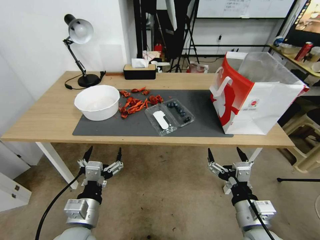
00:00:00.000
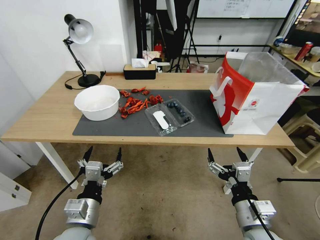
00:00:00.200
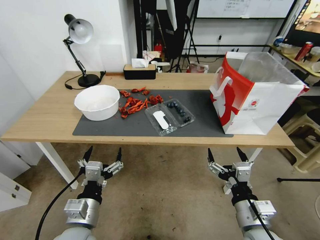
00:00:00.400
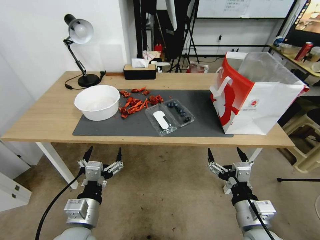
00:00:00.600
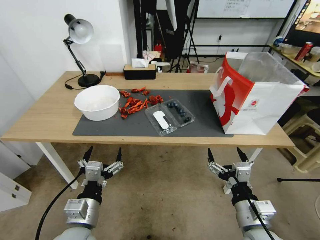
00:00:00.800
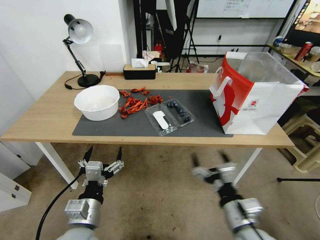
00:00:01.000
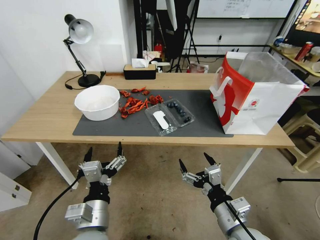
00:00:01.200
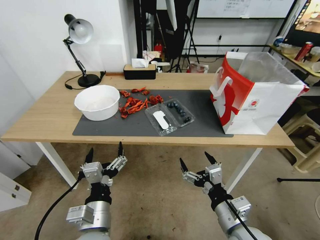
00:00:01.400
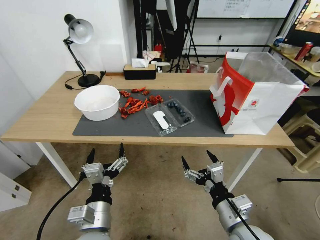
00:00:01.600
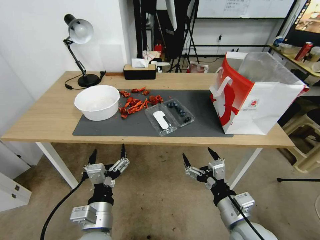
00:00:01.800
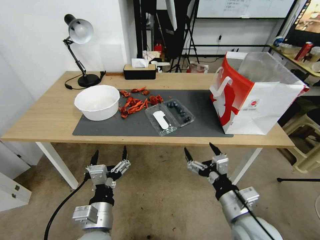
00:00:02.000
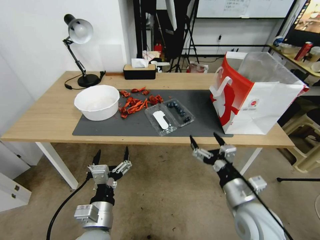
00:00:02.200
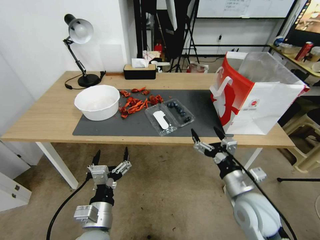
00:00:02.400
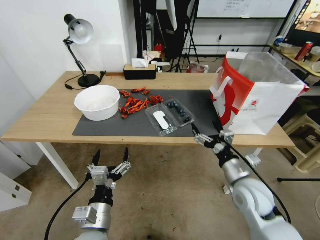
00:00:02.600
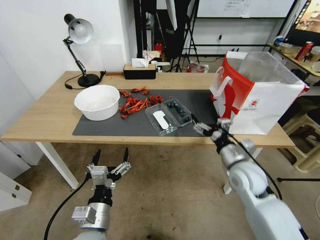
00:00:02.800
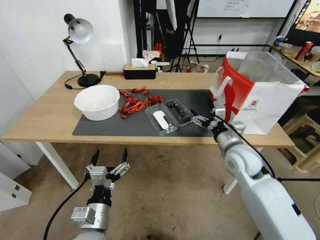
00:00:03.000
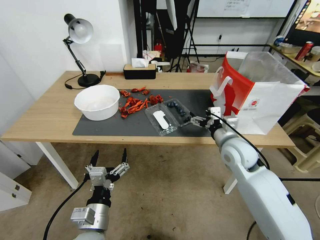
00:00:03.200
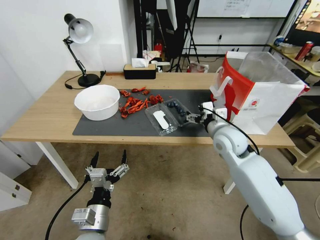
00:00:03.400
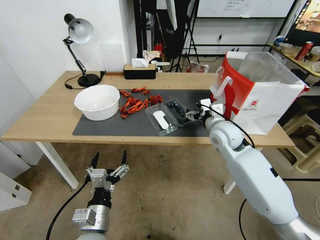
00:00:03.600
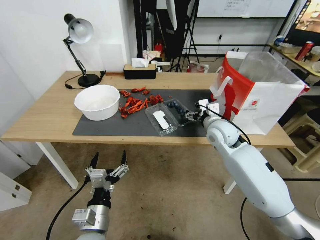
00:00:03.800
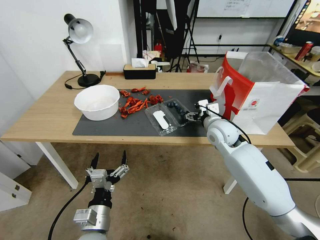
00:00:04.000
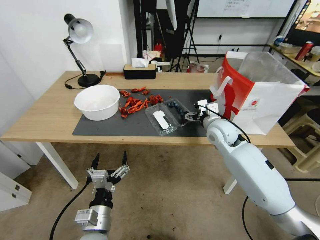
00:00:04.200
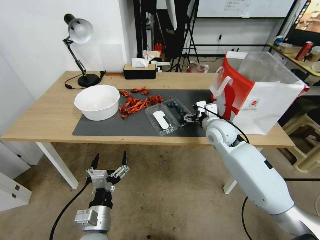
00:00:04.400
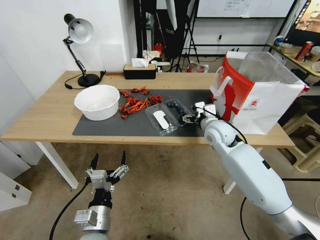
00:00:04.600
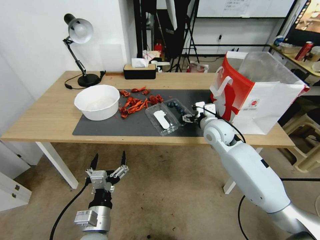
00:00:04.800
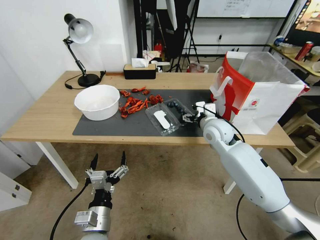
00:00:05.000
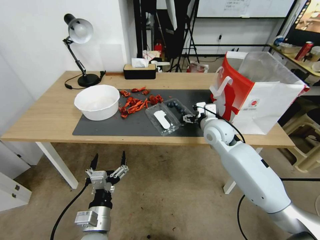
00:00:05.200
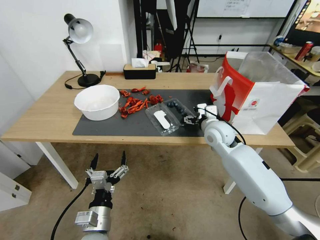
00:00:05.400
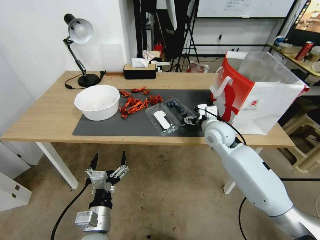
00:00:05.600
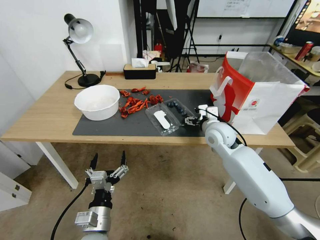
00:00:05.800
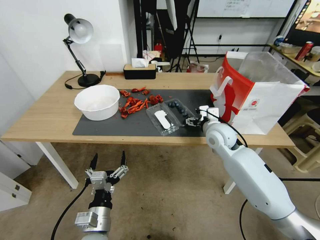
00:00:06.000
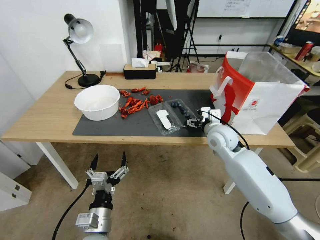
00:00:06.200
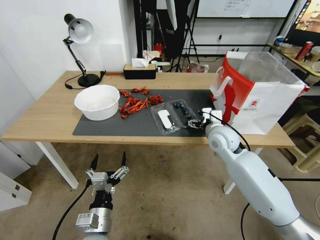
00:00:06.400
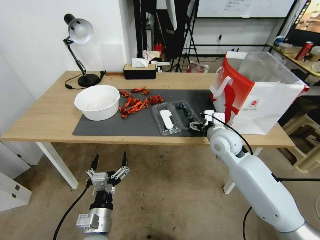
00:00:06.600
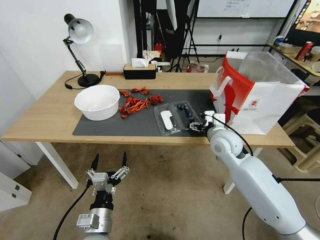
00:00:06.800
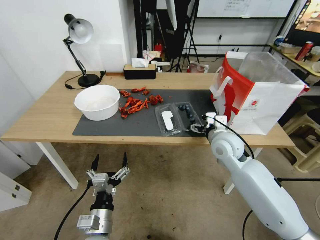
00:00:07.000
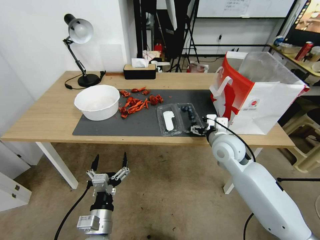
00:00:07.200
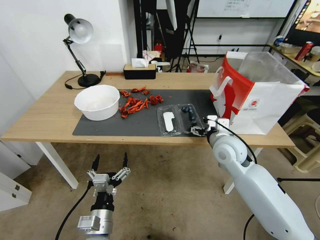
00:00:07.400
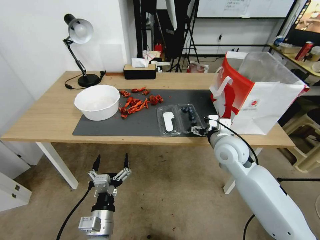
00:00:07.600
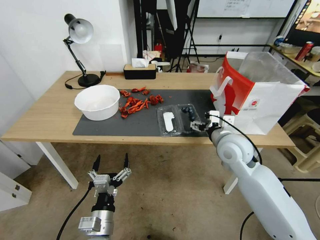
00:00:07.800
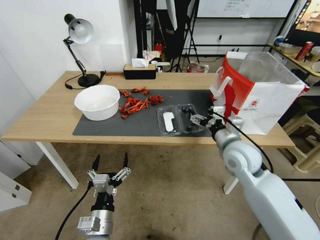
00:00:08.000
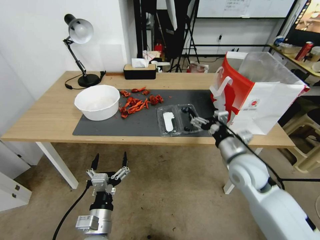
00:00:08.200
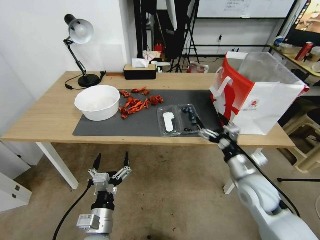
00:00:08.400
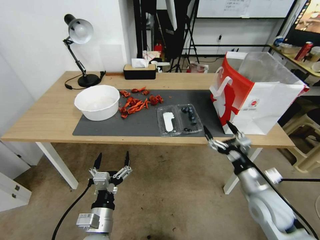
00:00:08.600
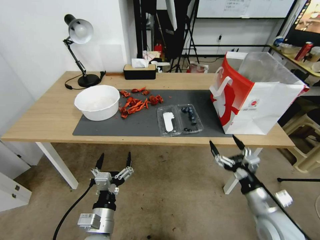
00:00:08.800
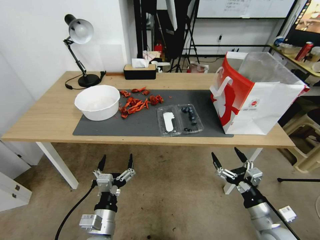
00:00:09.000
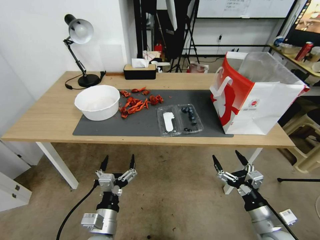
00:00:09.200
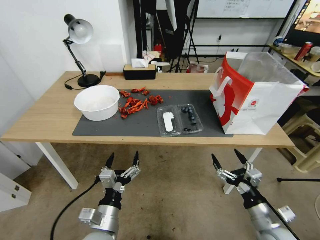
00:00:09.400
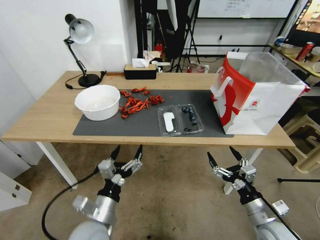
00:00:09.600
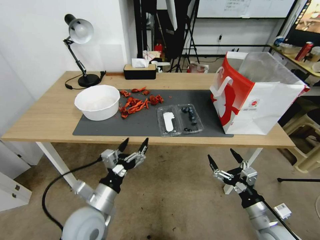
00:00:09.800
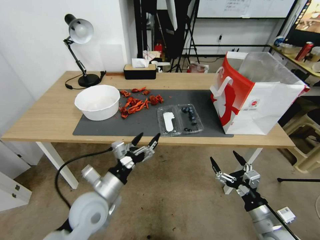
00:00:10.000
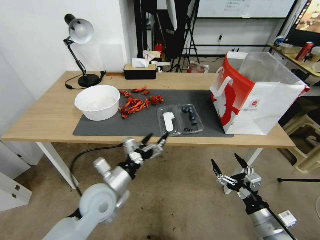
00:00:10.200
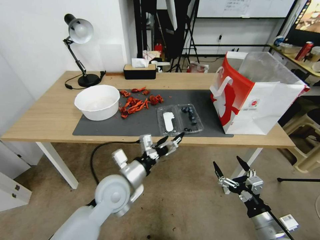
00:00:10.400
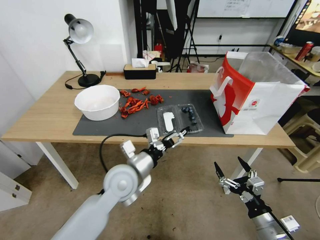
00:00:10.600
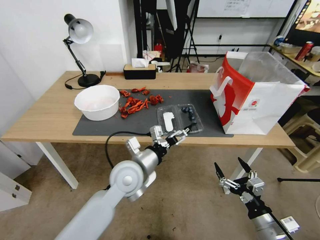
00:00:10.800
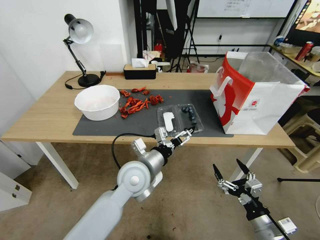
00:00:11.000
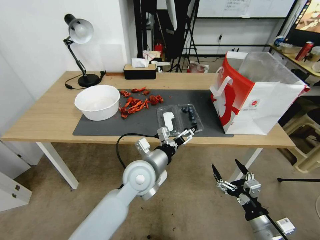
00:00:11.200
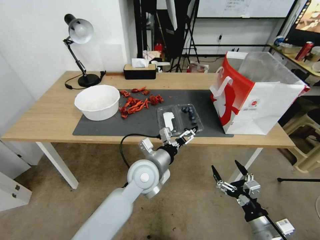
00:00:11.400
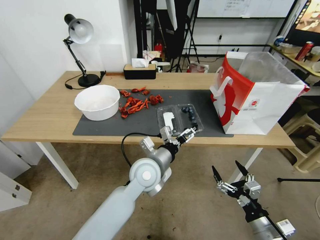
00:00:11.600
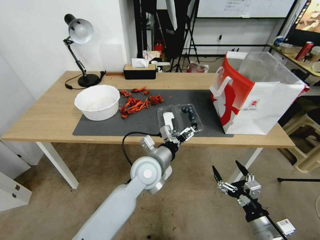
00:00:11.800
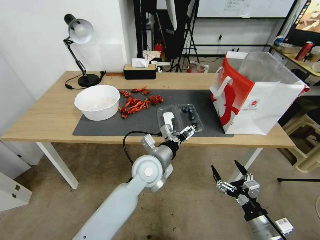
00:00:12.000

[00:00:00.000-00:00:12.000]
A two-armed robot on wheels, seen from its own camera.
Task of the whole recording: Close the takeout container lid, then place the container into the takeout bag.
00:00:01.600 to 00:00:03.000: The right gripper heads forward, covering approximately 20 cm.
00:00:03.000 to 00:00:04.400: The right gripper travels forward by some 10 cm.
00:00:04.400 to 00:00:06.000: The grippers move only a little.
00:00:06.000 to 00:00:07.600: The right gripper shifts some 5 cm backward.
00:00:07.600 to 00:00:09.000: The right gripper moves backward, downward and to the right, some 25 cm.
00:00:09.000 to 00:00:10.400: The left gripper is displaced forward and upward by some 15 cm.
00:00:10.400 to 00:00:12.000: The left gripper shifts roughly 10 cm to the right and forward.

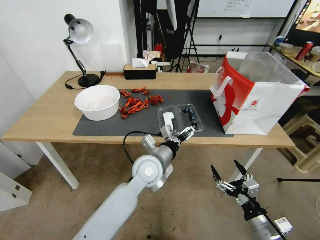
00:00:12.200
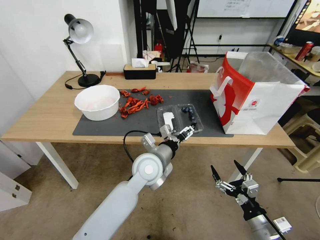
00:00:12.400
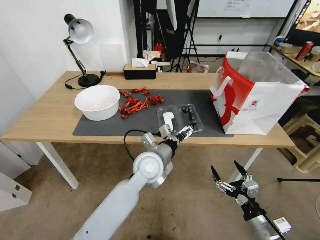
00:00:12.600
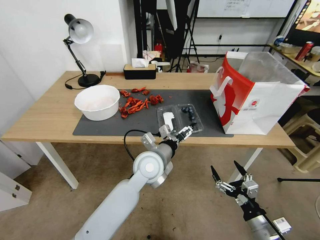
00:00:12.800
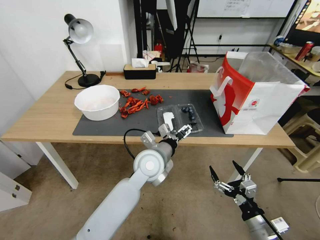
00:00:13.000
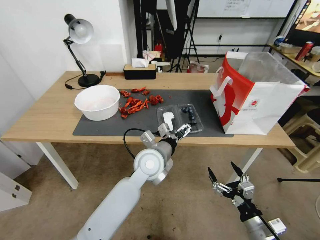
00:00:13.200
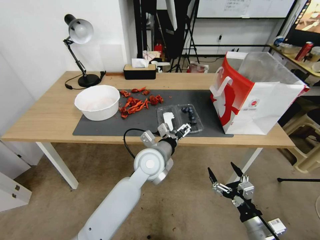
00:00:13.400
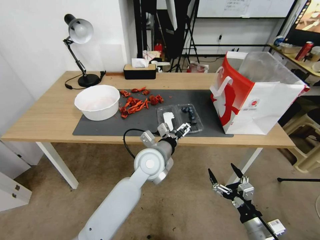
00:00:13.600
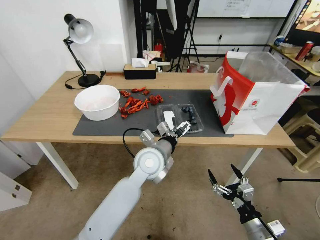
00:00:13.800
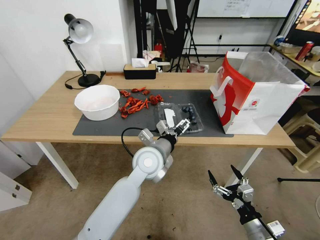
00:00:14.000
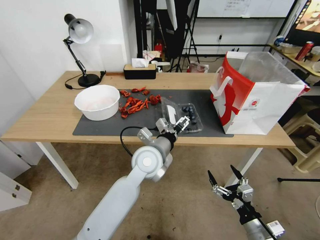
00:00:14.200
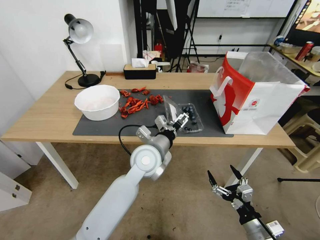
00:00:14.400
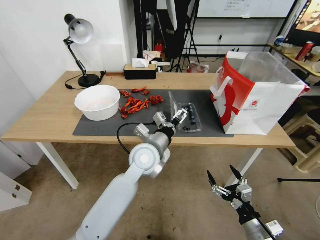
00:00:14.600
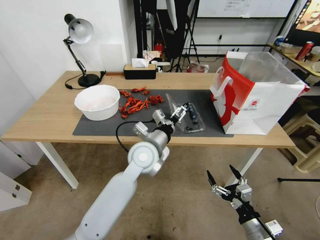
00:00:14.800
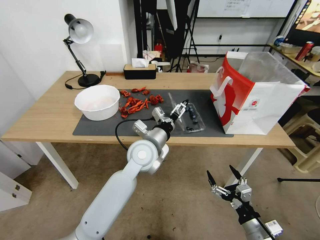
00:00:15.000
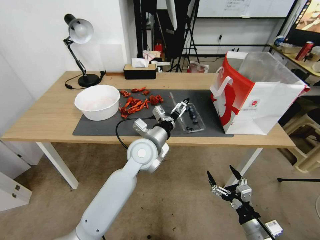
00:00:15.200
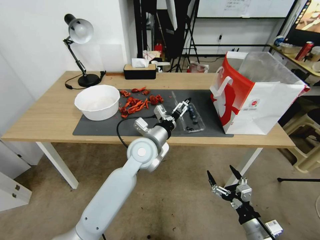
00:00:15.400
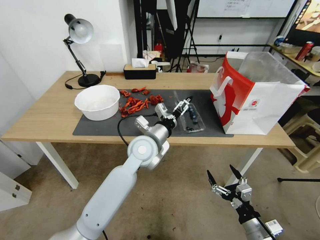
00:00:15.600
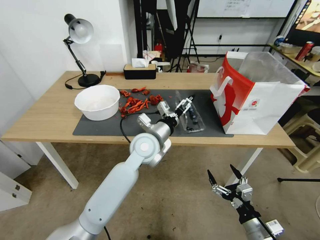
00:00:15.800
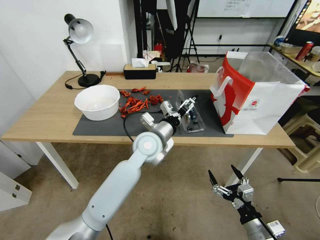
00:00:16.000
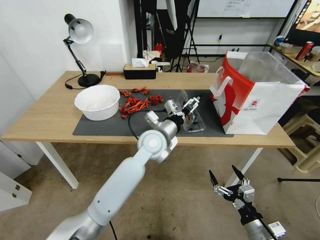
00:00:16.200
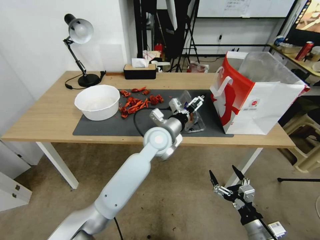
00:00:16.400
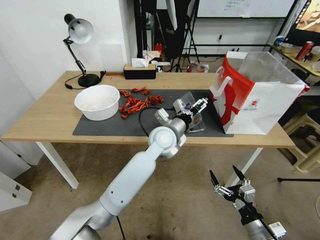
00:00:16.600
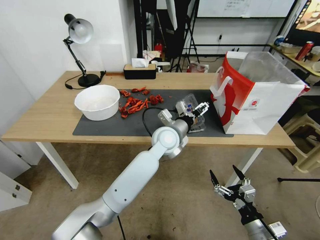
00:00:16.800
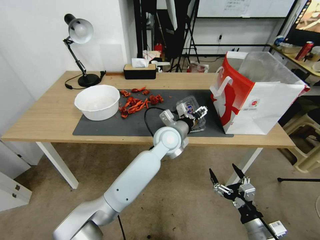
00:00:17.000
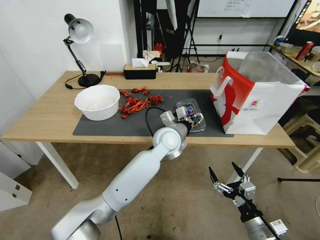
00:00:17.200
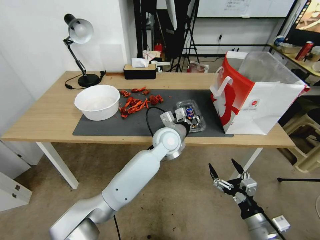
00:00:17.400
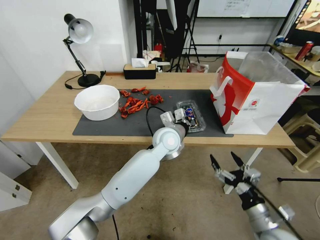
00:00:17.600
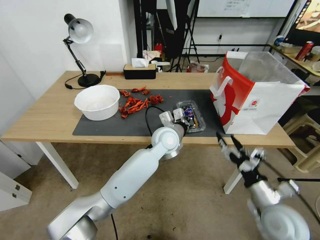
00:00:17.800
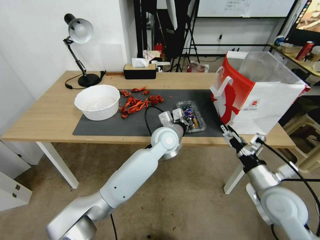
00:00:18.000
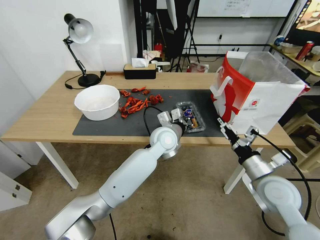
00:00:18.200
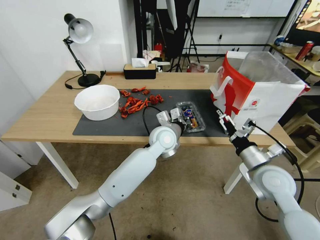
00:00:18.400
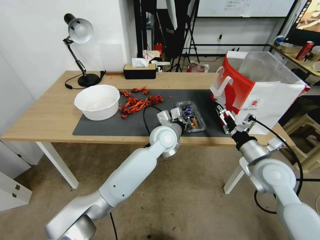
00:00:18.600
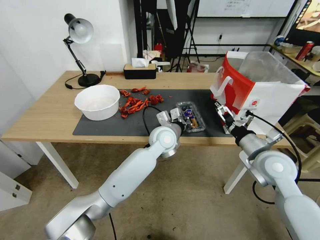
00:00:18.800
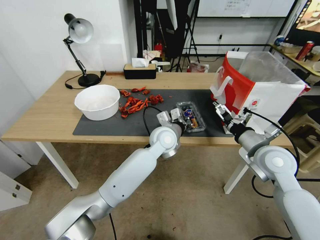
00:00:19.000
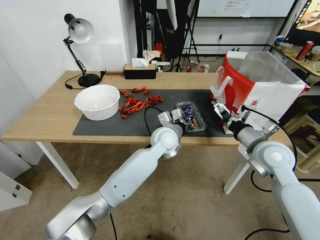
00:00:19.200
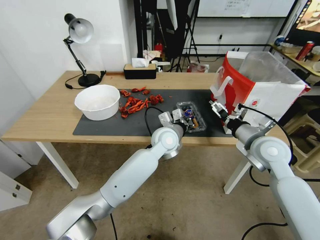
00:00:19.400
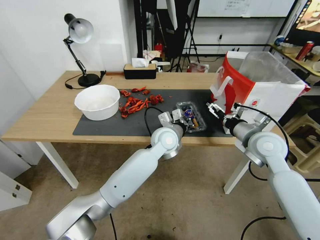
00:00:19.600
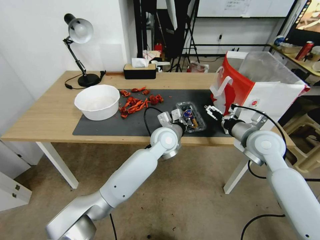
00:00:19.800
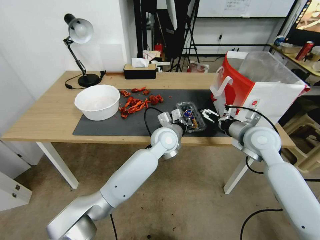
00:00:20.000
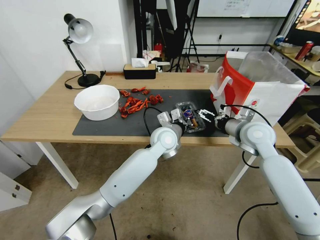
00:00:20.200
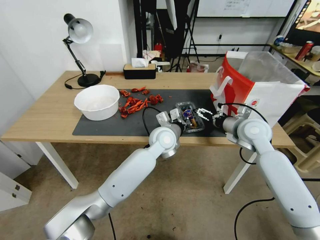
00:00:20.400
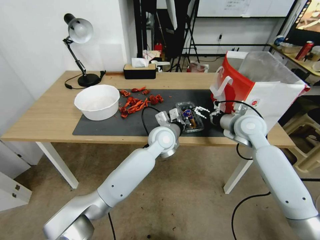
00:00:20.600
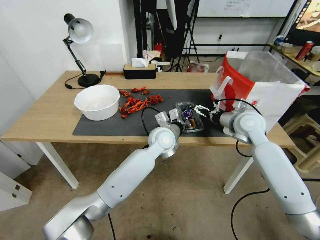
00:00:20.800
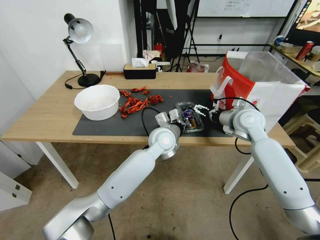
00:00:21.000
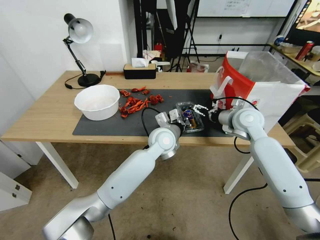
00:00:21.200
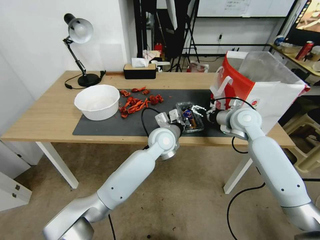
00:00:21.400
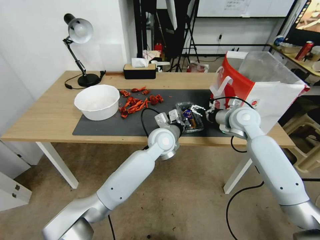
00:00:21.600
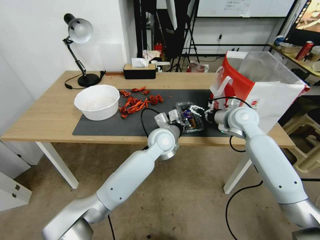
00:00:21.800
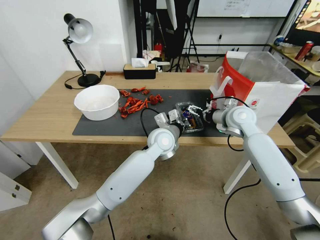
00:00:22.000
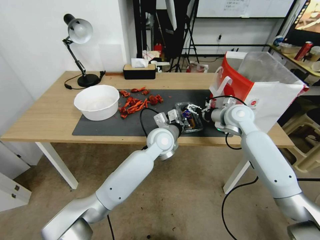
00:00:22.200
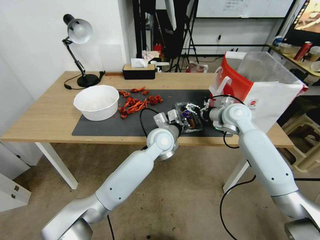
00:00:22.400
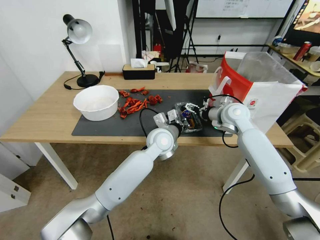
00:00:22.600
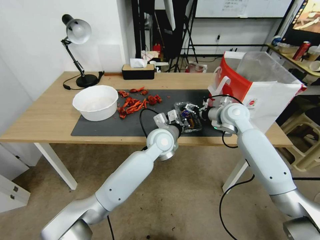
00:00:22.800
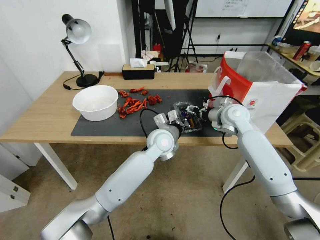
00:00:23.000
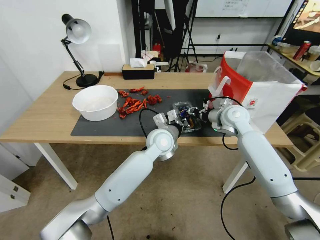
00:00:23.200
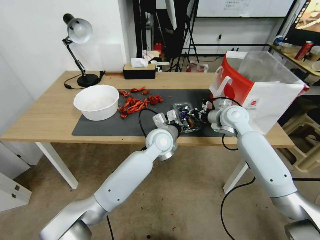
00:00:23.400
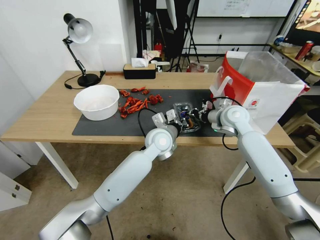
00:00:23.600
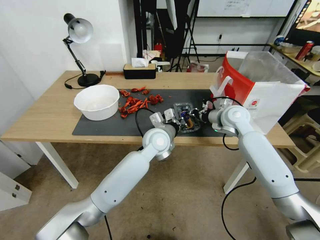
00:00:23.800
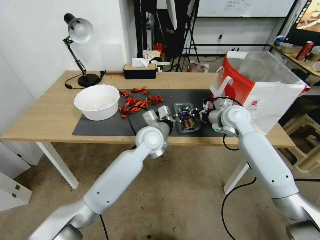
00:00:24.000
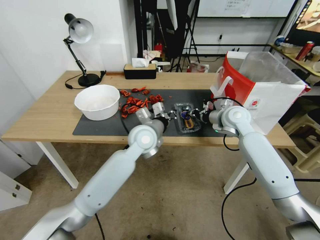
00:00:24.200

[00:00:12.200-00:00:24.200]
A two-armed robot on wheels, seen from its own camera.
Task of the whole recording: Close the takeout container lid, then place the container into the takeout bag.
00:00:12.200 to 00:00:15.200: The grippers move only a little.
00:00:15.200 to 00:00:16.600: The left gripper moves to the right and forward, roughly 10 cm.
00:00:16.600 to 00:00:18.200: The left gripper closes; the right gripper heads forward and upward, covering roughly 20 cm.
00:00:18.200 to 00:00:19.800: The right gripper heads forward and upward, covering roughly 15 cm.
00:00:19.800 to 00:00:21.200: The right gripper heads forward, covering roughly 10 cm.
00:00:21.200 to 00:00:22.600: There are only small adjustments of the grippers.
00:00:22.600 to 00:00:24.200: The left gripper is displaced to the left by some 5 cm. The right gripper closes up.
